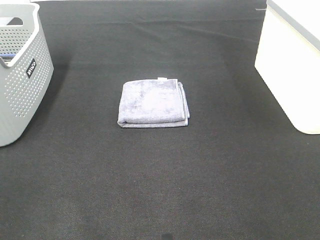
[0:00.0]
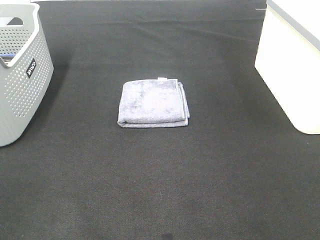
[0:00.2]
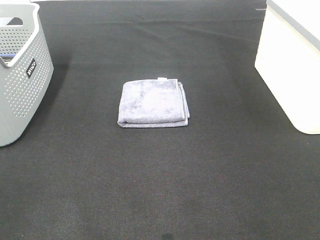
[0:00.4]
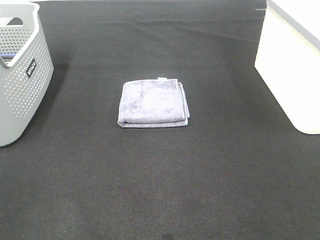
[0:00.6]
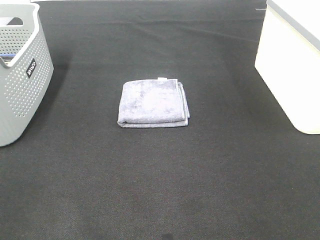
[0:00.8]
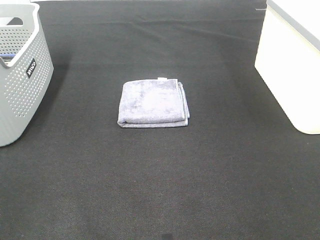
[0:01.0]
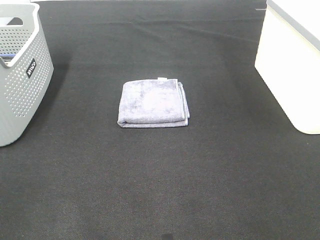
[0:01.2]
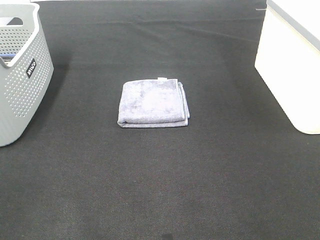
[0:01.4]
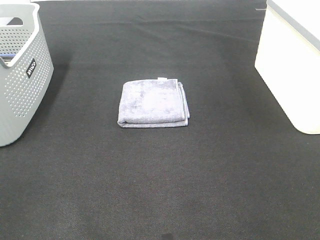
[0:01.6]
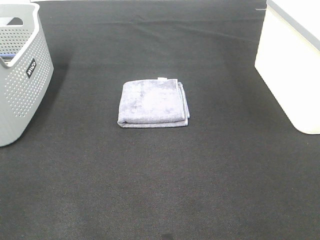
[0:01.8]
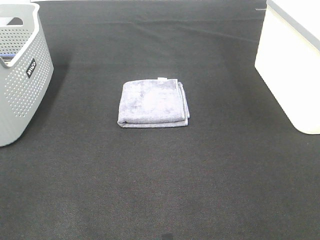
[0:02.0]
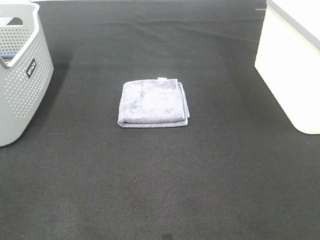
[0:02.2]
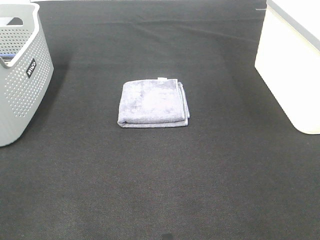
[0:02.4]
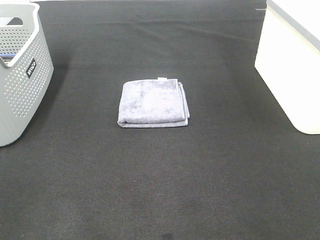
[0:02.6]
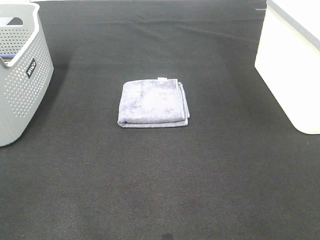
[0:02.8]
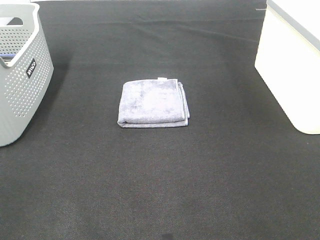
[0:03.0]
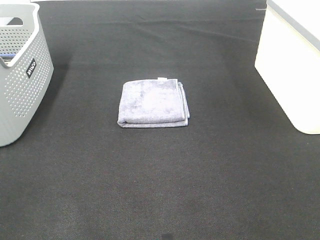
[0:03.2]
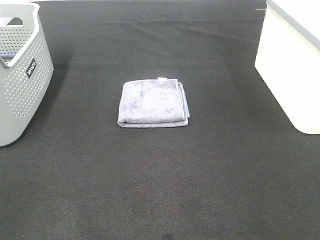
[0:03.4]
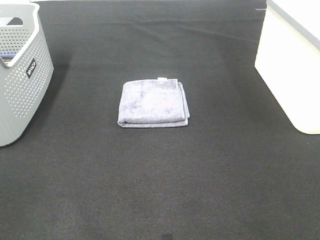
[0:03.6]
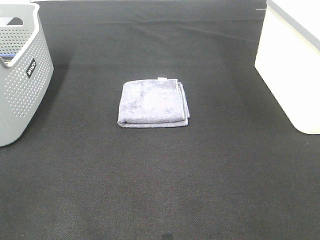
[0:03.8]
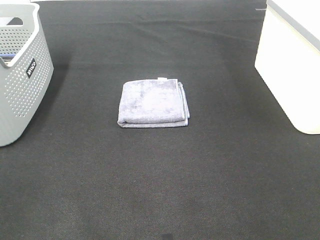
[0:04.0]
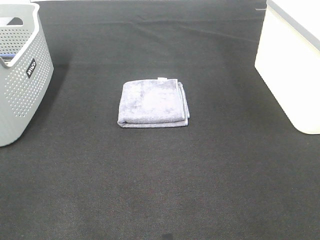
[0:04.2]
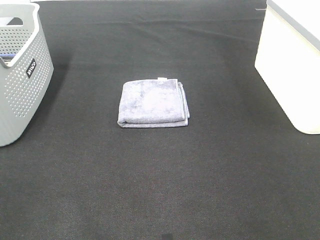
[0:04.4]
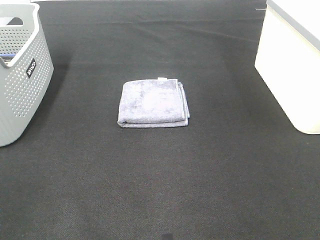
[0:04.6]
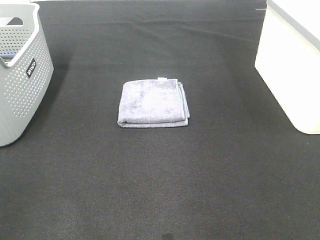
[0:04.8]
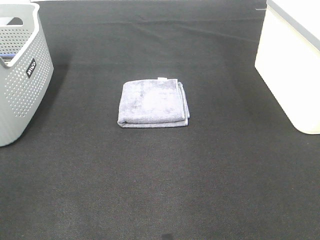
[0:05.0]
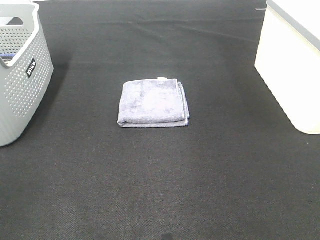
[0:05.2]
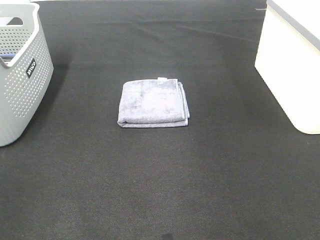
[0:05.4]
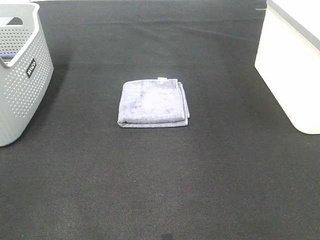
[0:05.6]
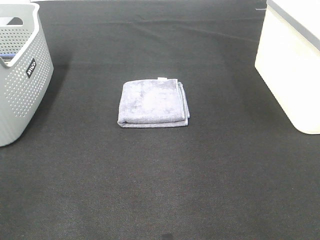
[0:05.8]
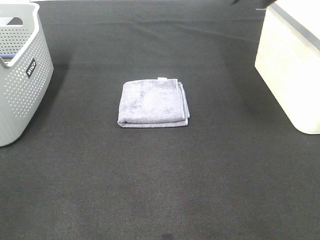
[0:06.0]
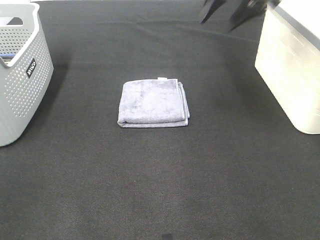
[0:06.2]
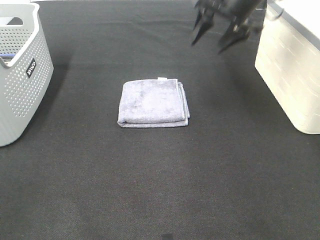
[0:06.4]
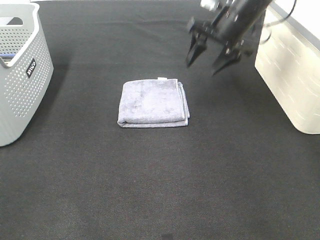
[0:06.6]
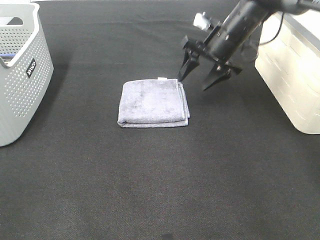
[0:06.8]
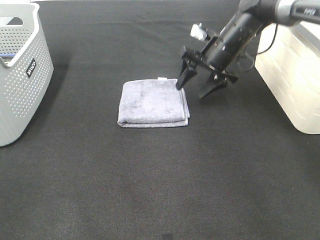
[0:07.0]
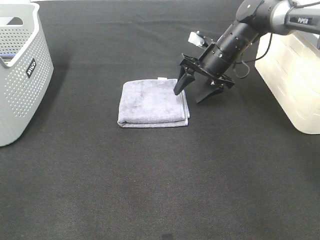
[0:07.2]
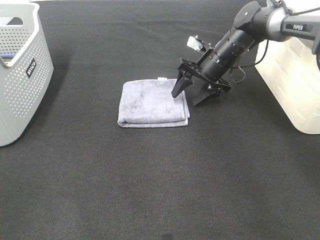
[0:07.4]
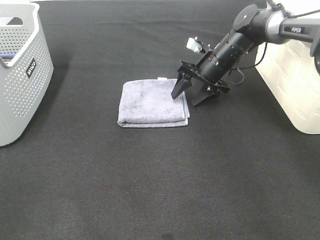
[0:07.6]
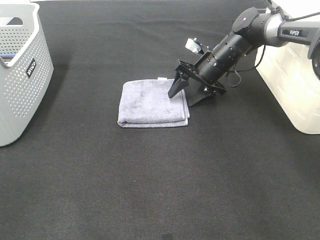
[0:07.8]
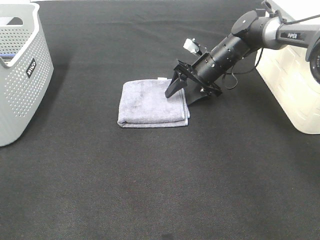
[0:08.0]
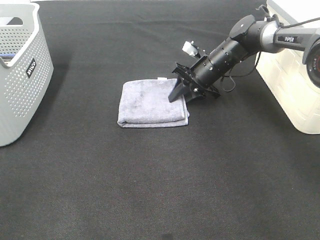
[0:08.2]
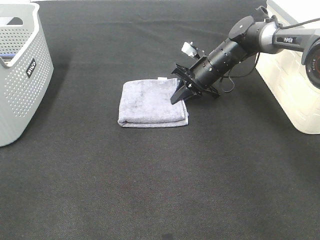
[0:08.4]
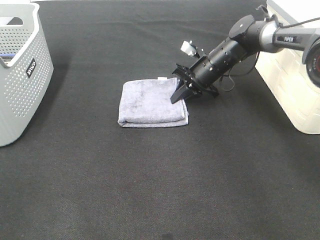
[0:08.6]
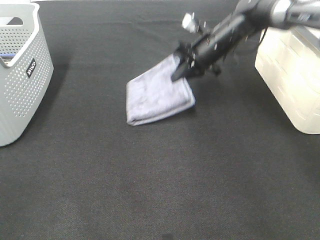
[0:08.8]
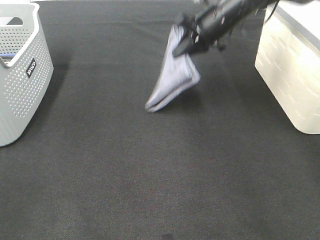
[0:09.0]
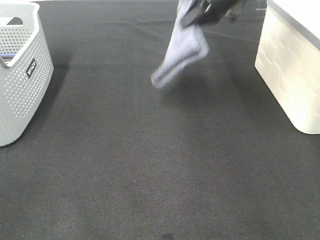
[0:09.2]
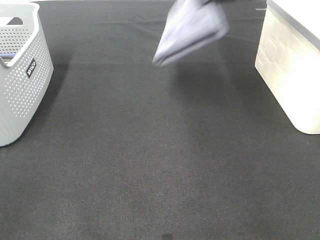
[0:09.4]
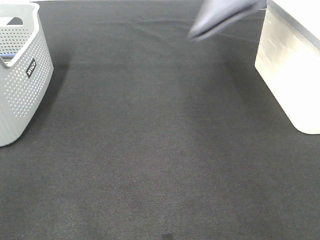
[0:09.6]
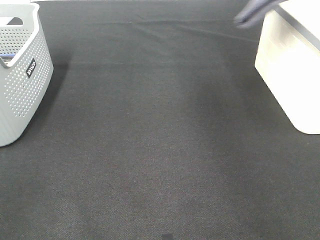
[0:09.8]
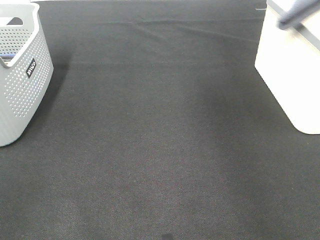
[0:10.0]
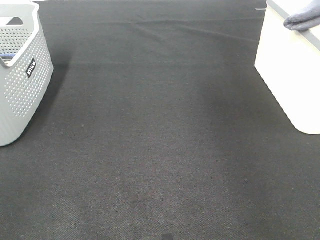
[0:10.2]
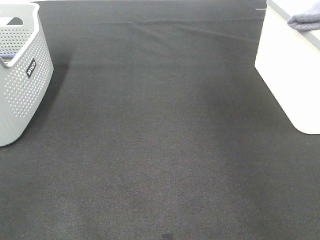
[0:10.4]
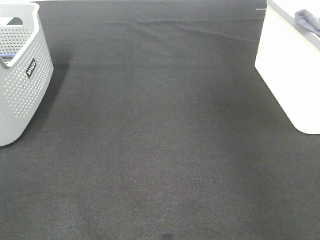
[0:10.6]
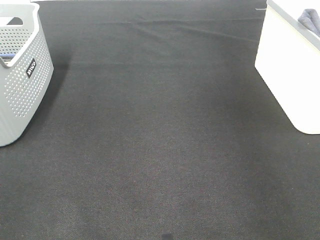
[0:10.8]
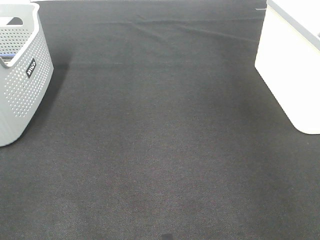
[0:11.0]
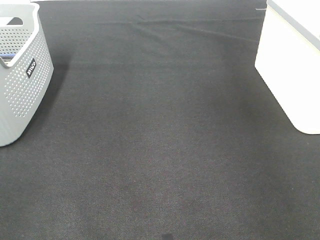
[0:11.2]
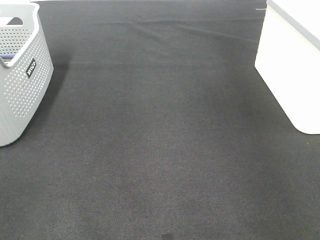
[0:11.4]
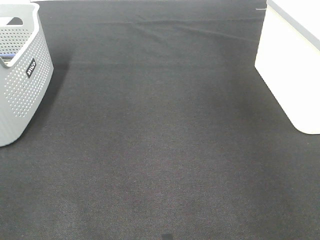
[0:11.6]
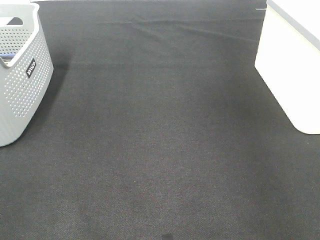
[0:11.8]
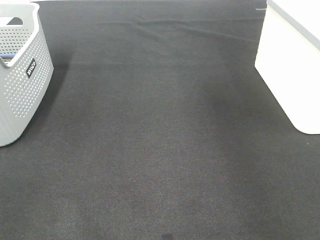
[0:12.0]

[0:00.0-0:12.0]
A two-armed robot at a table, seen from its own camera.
Step, 0:00.0 to 0:08.2: Right hand: grab the folded grey towel.
Step, 0:08.4 to 0:11.4: Right hand: place the grey towel in right basket.
0:00.0 to 0:03.0: Both grippers stay about where they are.
0:06.0 to 0:07.6: The right gripper heads downward, covering approximately 25 cm.
0:07.6 to 0:09.0: The right gripper goes roughly 10 cm upward, and closes up.
0:09.0 to 0:10.4: The right gripper travels to the right and upward by about 30 cm.
0:10.4 to 0:12.0: The right gripper goes downward and returns, some 10 cm each way, and opens its fingers.

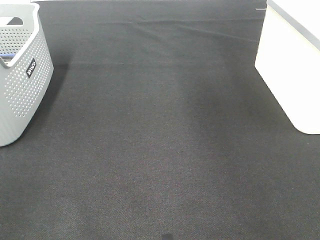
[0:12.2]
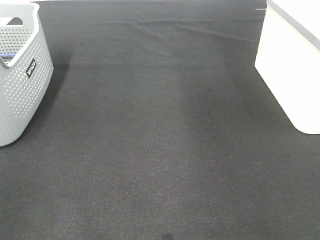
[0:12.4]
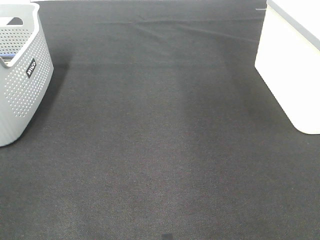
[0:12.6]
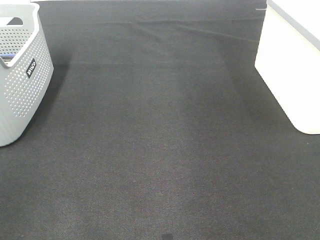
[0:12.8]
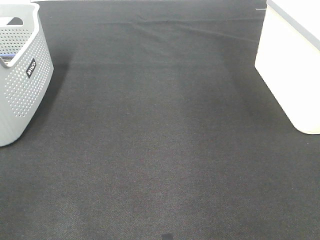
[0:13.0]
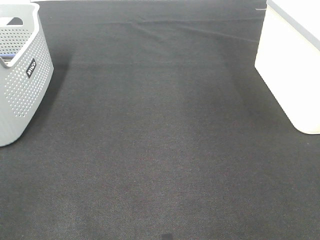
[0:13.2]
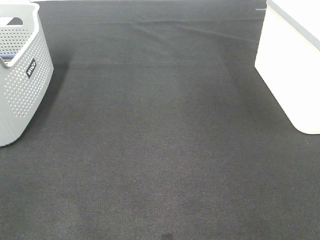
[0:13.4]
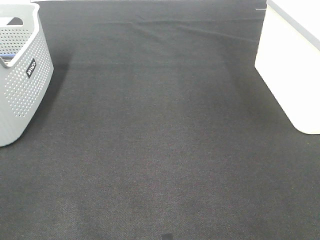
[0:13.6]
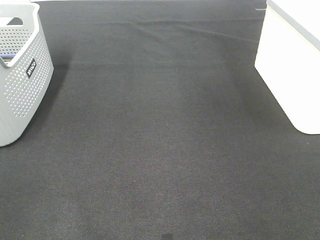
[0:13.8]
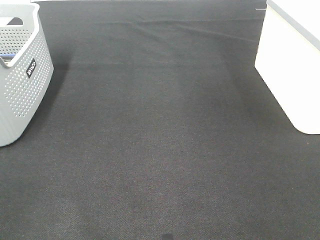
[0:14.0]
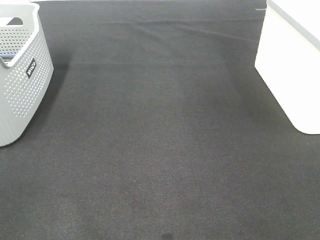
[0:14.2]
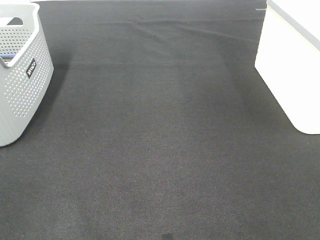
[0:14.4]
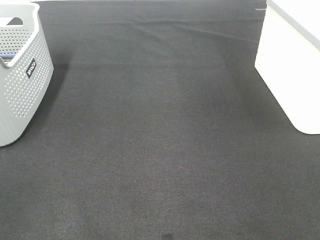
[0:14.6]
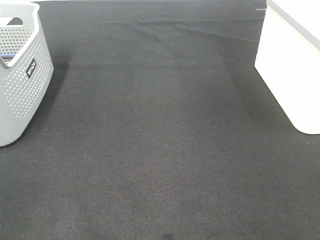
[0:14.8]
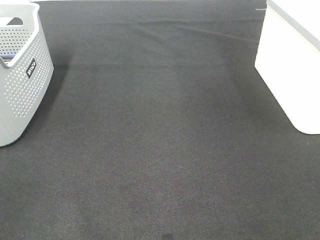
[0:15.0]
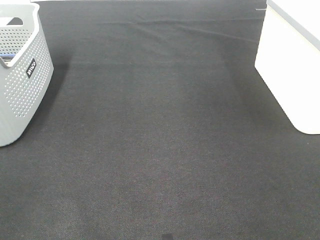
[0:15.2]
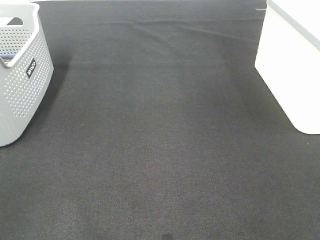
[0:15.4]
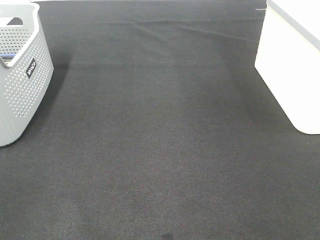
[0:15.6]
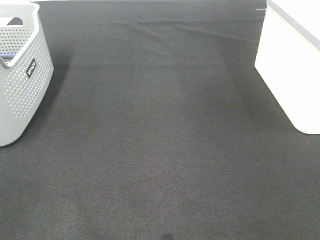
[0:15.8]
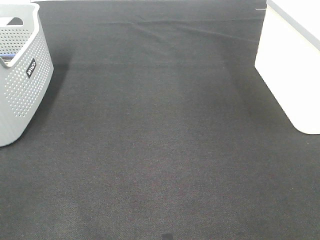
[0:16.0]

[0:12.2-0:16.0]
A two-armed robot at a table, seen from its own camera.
0:14.8 to 0:16.0: Both grippers stay put.

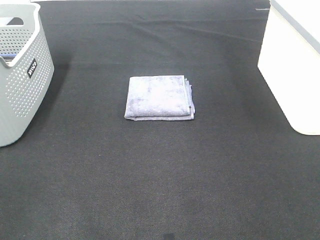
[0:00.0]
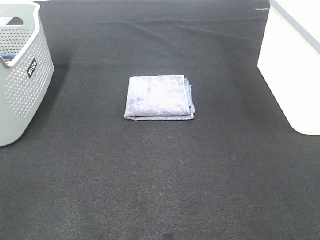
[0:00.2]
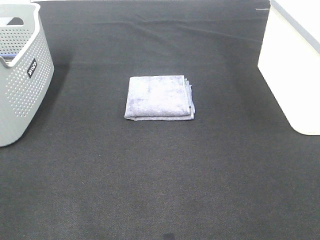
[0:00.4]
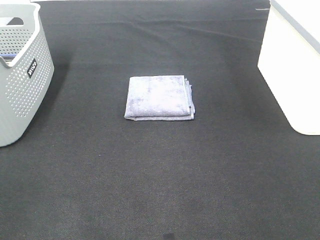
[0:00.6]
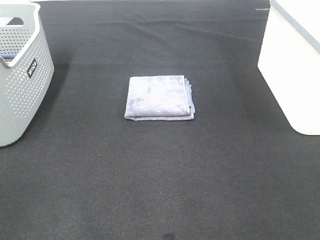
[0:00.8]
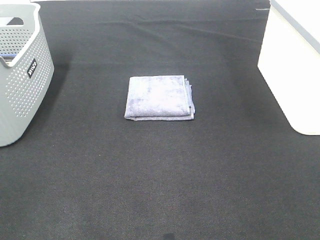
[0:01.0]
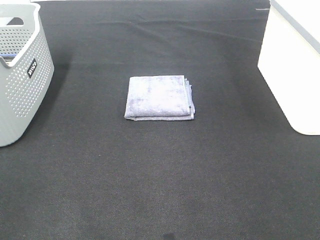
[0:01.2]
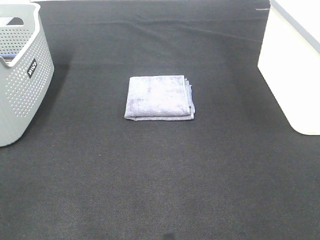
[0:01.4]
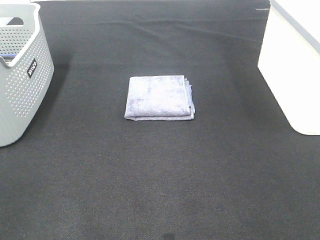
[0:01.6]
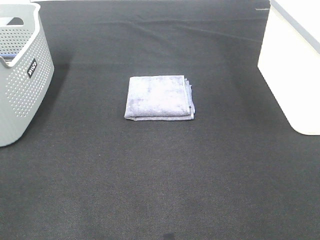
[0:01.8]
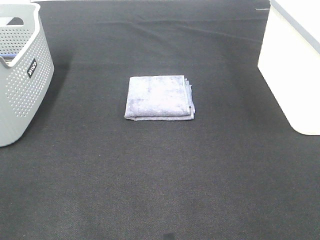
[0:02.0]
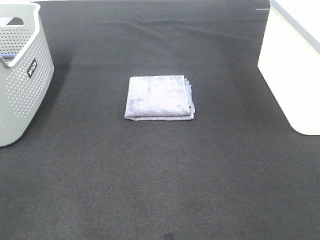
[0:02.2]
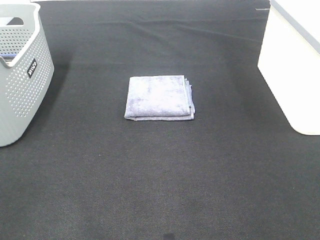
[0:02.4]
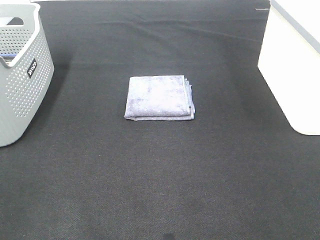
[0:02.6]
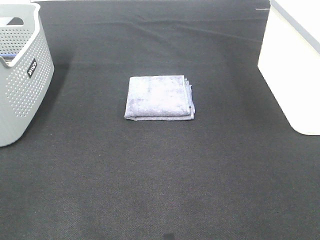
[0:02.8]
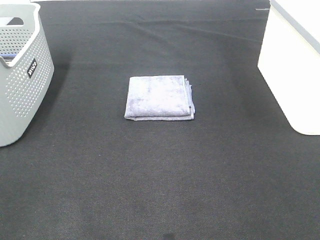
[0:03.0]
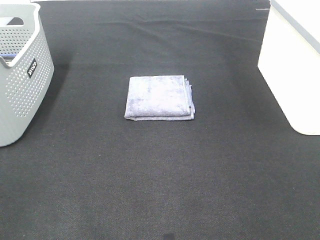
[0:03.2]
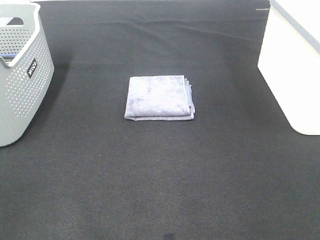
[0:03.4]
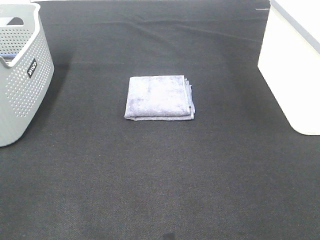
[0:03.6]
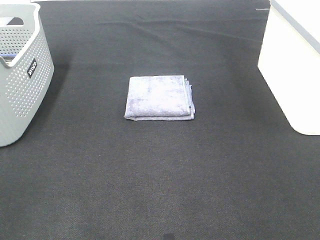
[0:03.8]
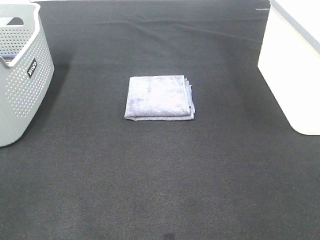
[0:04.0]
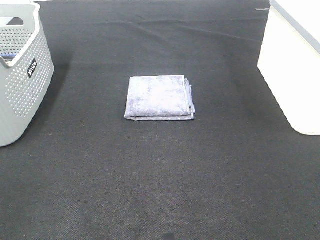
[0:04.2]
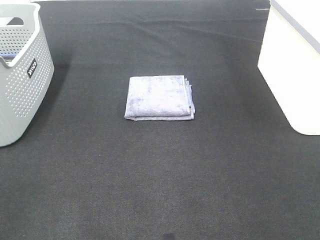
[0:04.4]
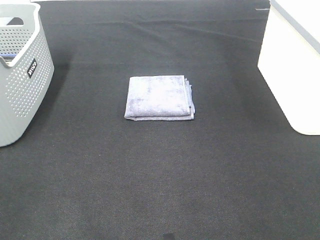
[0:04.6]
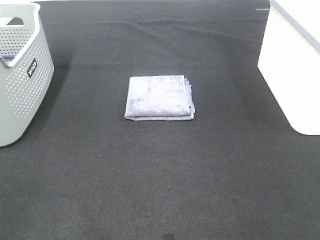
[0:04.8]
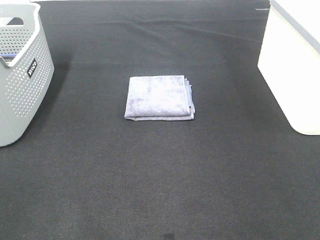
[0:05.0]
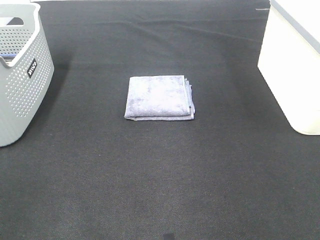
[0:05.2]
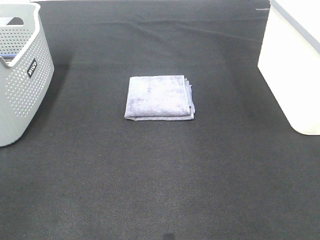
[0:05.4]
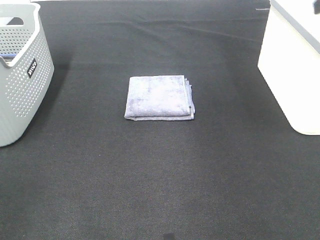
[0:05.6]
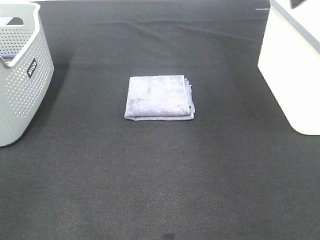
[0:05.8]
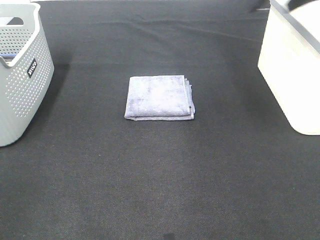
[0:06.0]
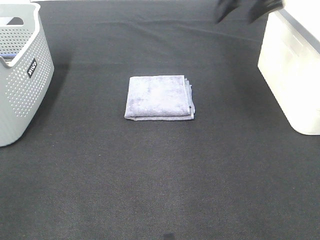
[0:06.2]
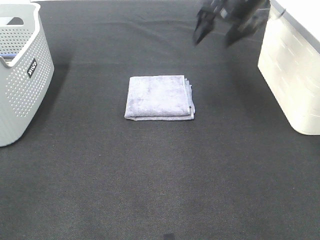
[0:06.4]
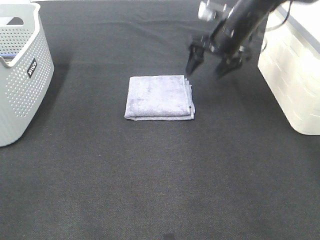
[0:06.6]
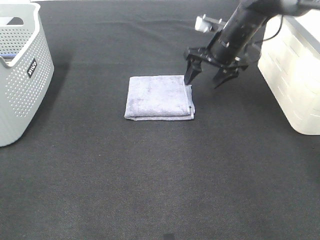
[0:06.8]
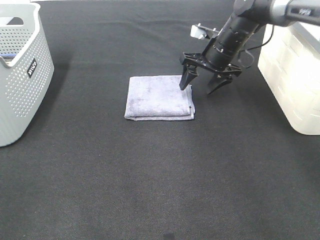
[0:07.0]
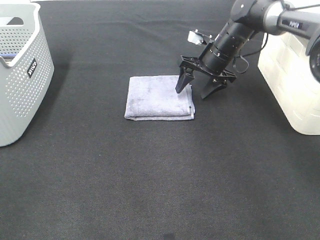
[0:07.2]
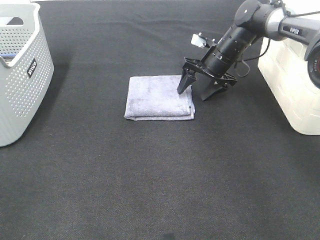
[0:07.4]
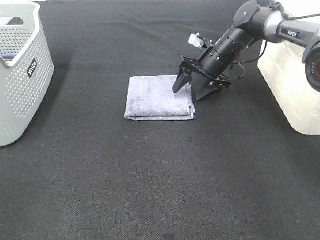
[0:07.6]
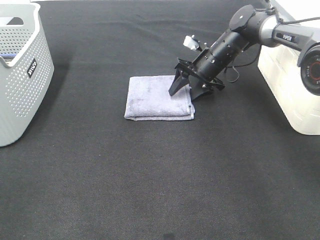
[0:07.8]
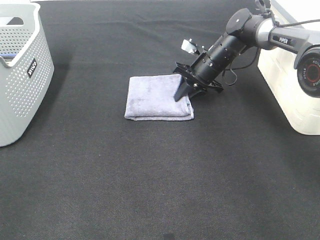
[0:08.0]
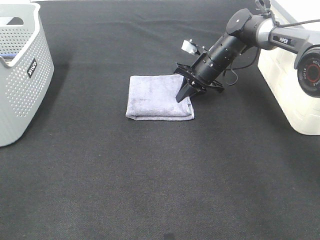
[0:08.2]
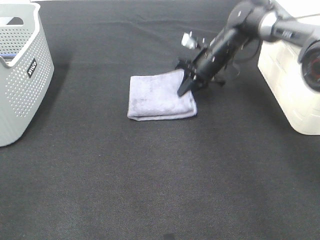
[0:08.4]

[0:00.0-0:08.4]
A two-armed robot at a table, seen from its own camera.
Step, 0:00.0 to 0:08.2: Right hand: grab the folded grey towel.
0:00.0 to 0:04.2: The two grippers keep their place.
0:05.6 to 0:07.0: The right gripper heads downward, forward and to the left, covering roughly 35 cm.
0:07.0 to 0:08.4: The right gripper closes its fingers.
